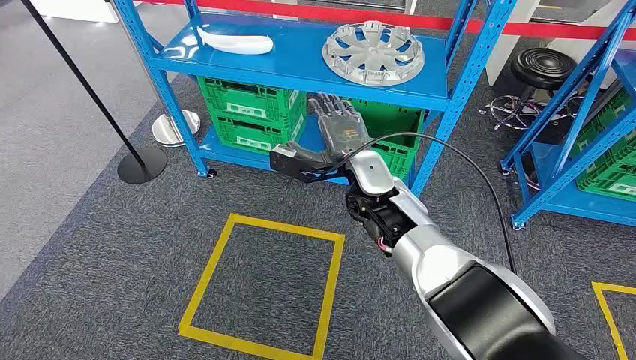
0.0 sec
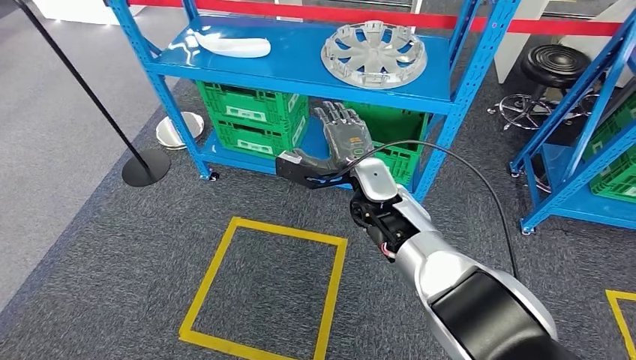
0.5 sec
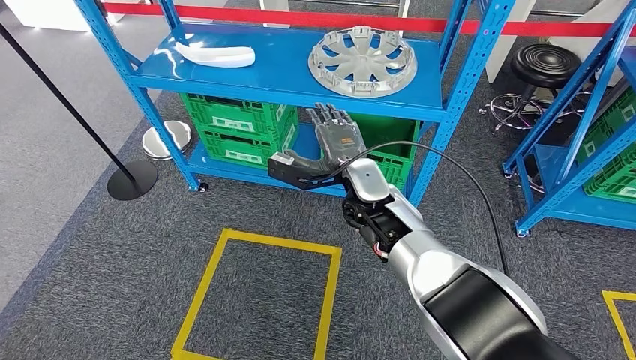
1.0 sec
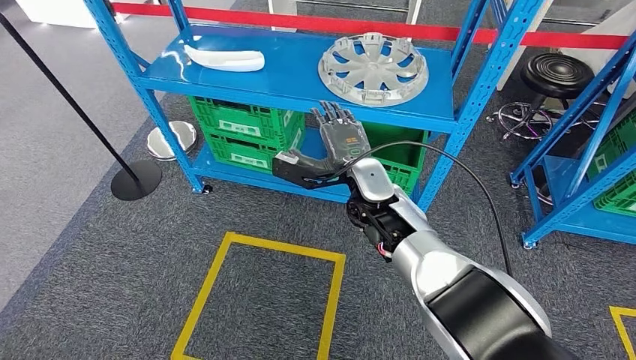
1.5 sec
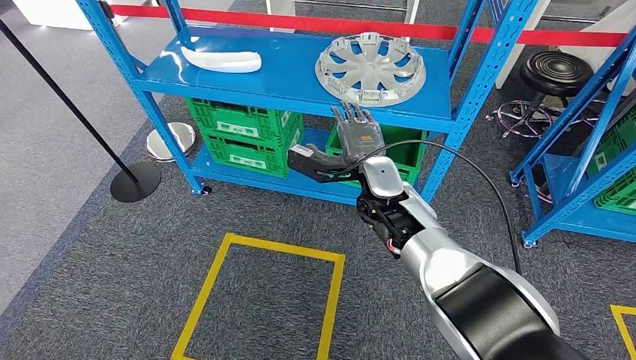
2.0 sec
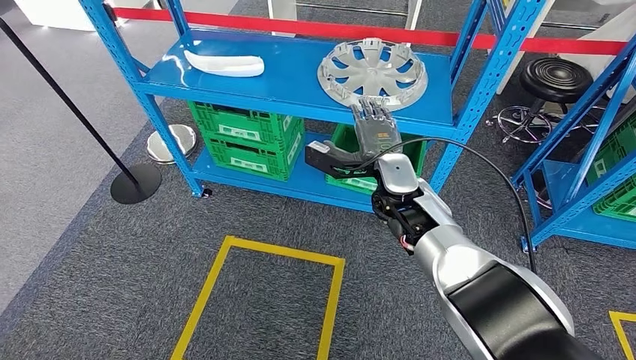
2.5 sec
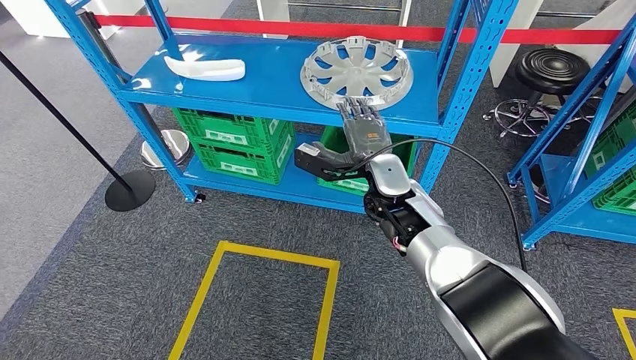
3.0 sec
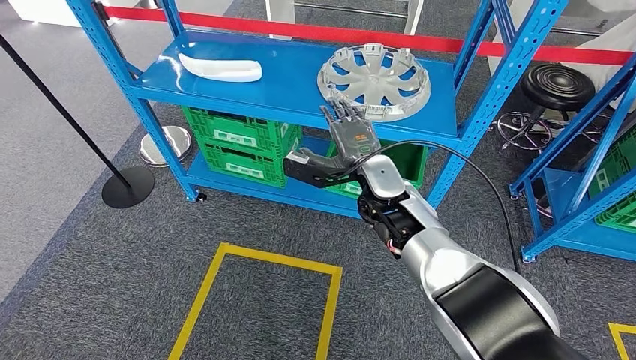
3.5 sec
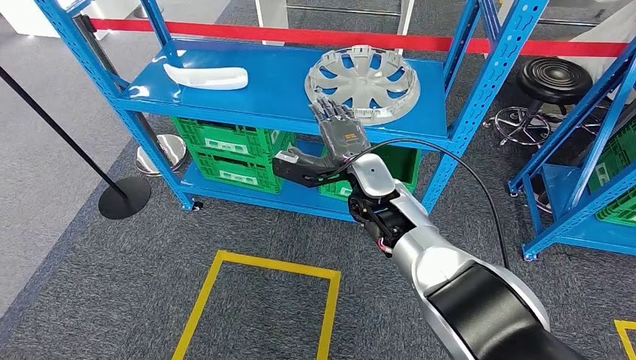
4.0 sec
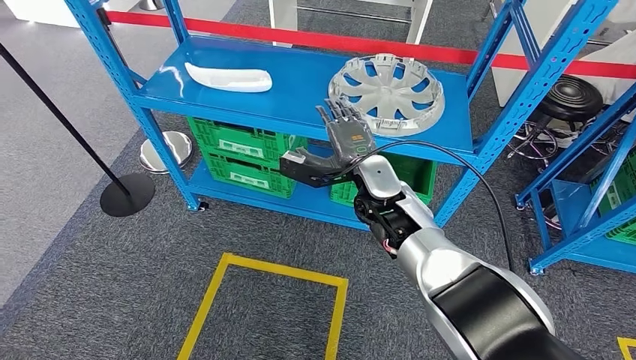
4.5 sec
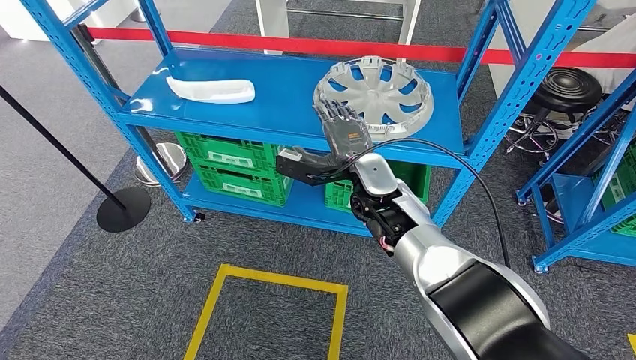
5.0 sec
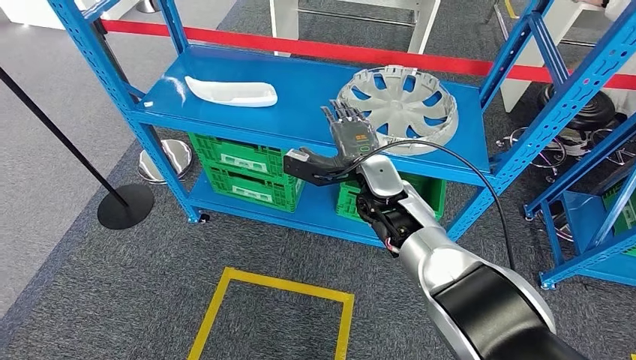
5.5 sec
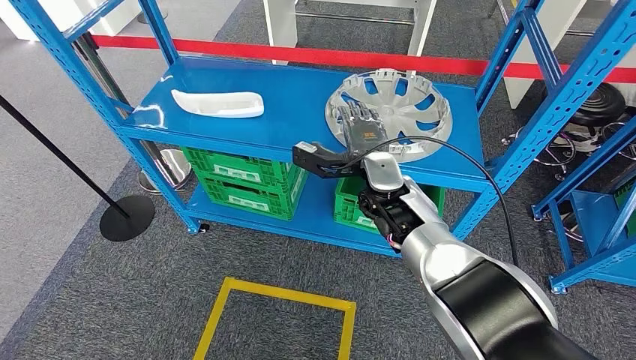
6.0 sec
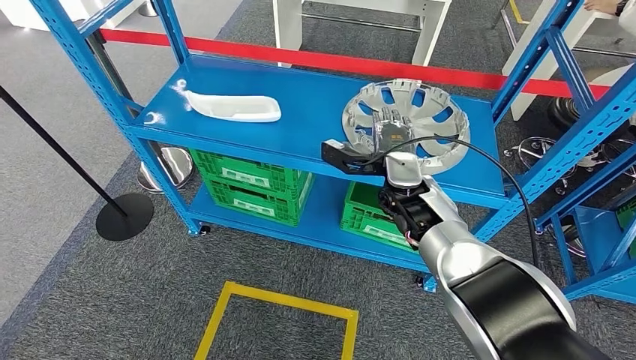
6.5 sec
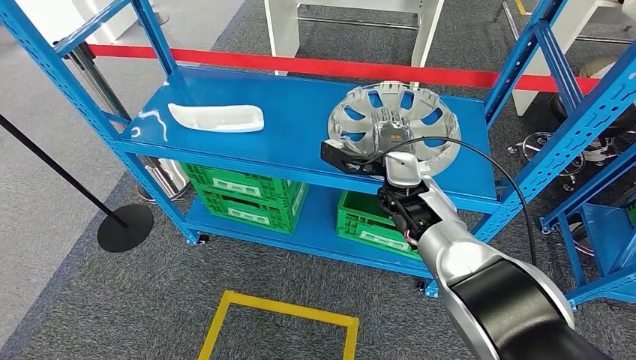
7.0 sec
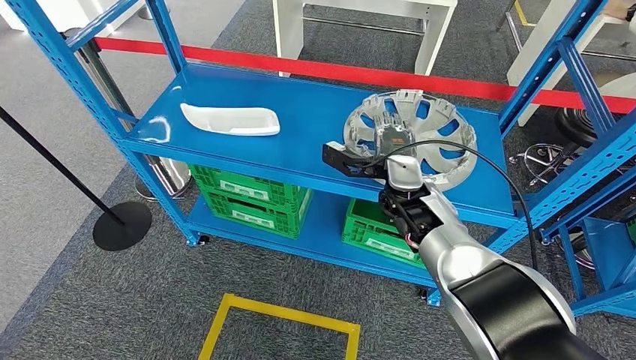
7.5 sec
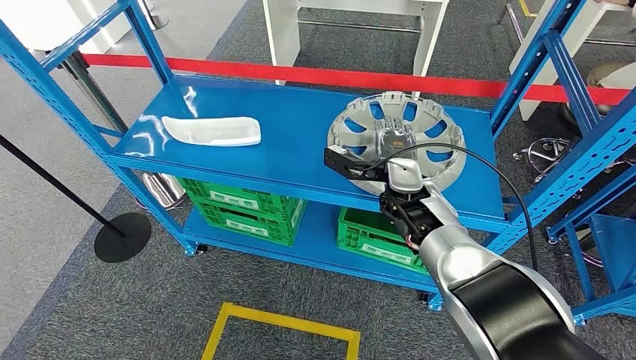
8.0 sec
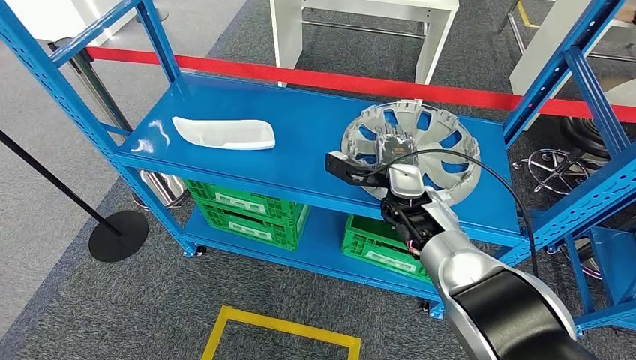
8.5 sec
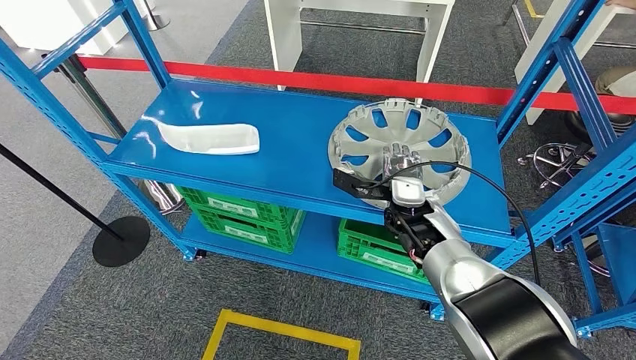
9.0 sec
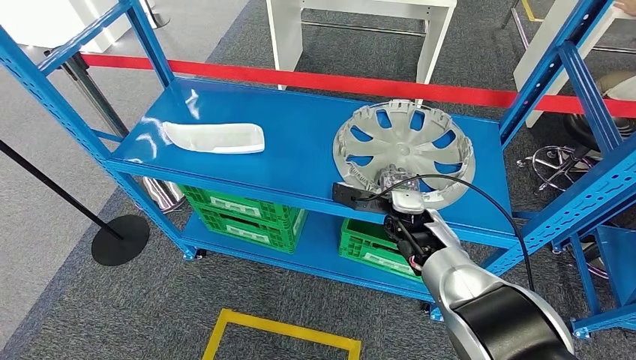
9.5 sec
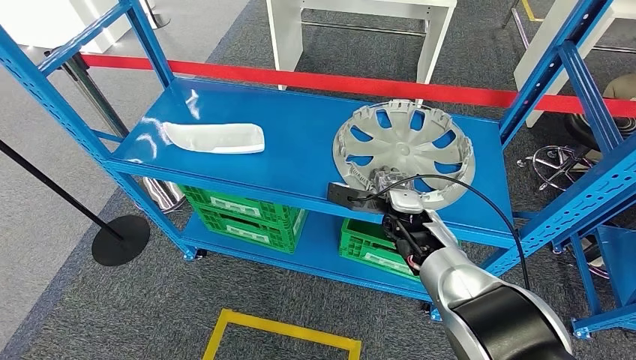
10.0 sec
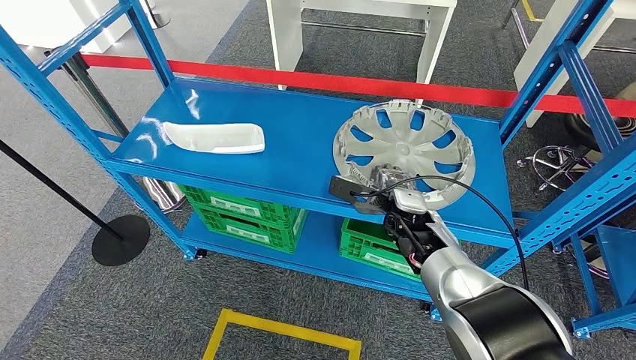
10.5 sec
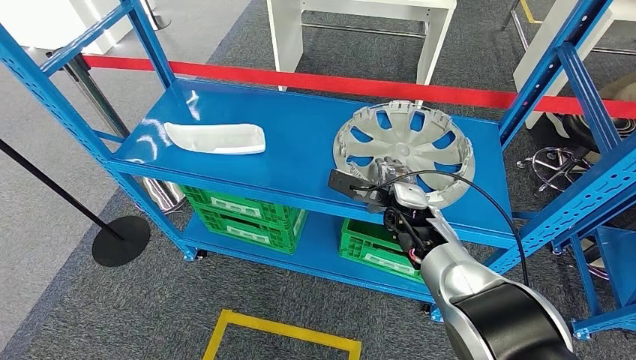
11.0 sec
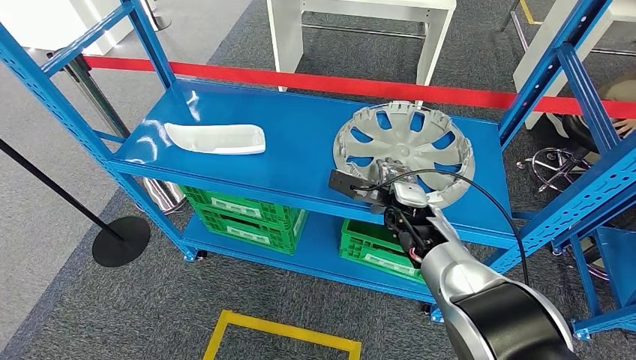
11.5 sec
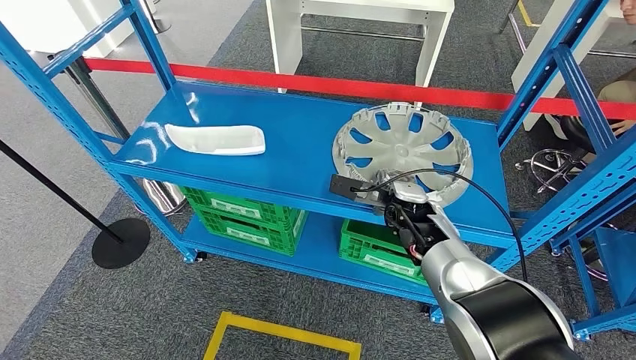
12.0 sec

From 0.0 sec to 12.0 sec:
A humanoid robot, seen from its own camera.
From 10.0 sec to 12.0 sec: The hands move only a little.

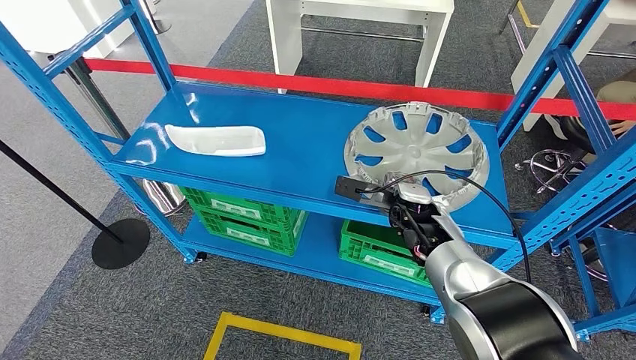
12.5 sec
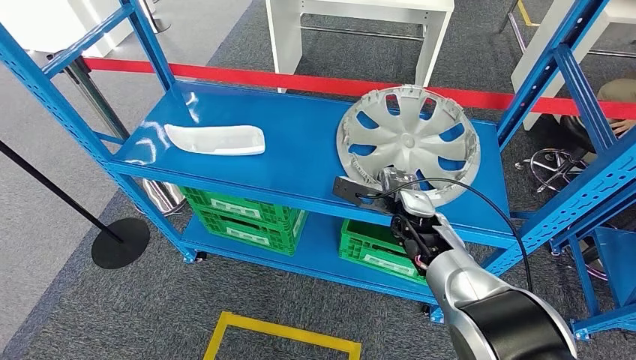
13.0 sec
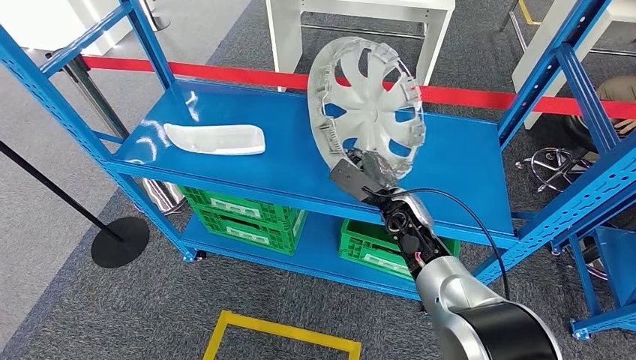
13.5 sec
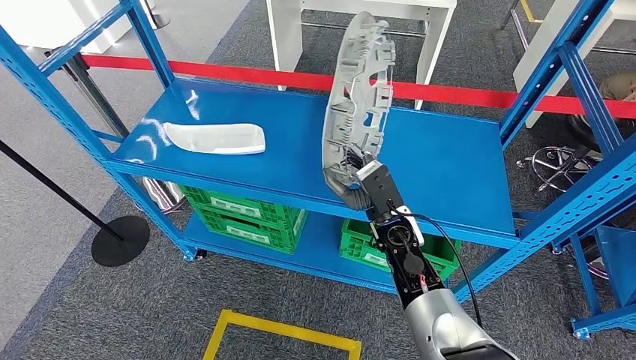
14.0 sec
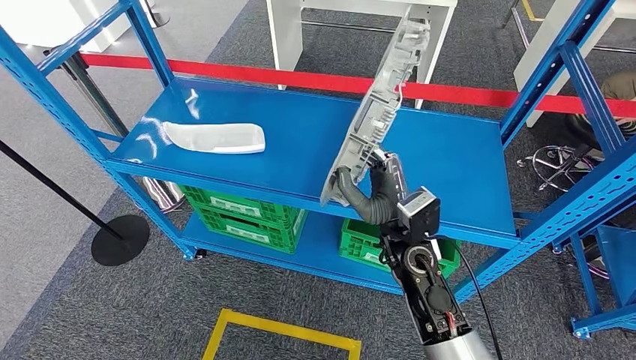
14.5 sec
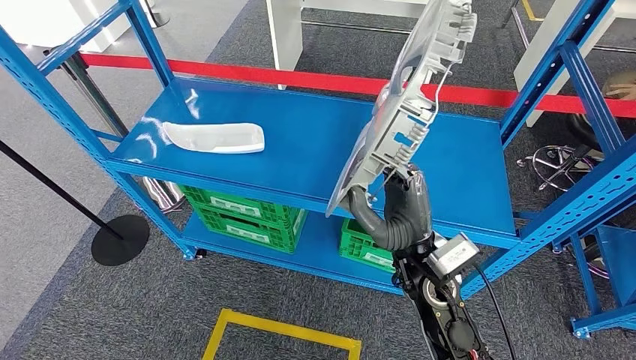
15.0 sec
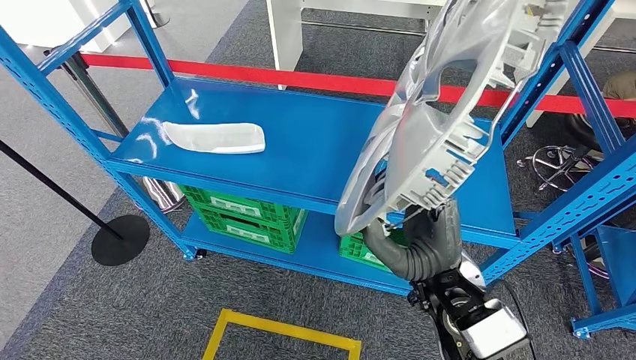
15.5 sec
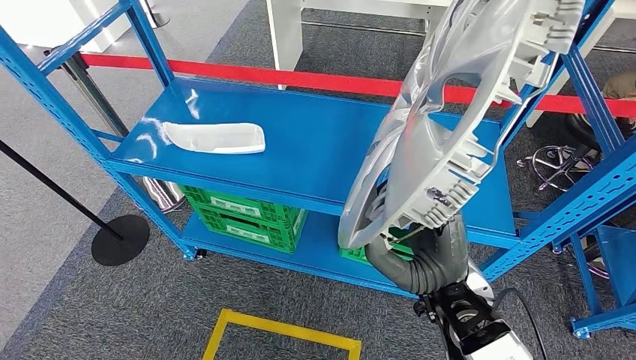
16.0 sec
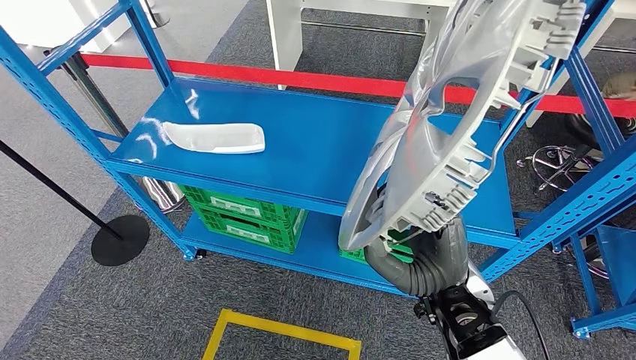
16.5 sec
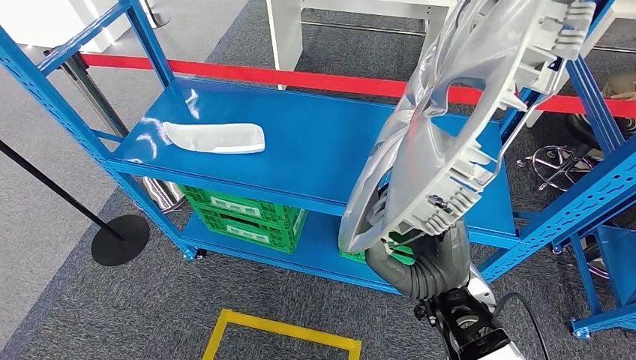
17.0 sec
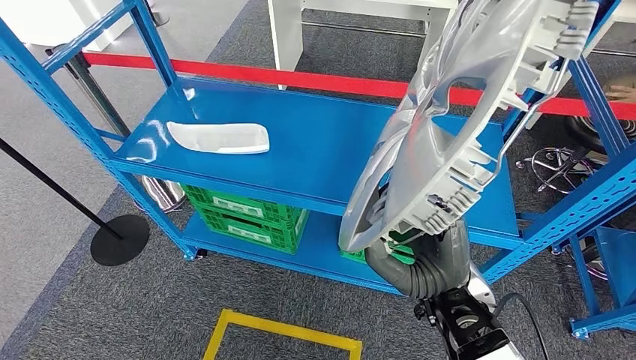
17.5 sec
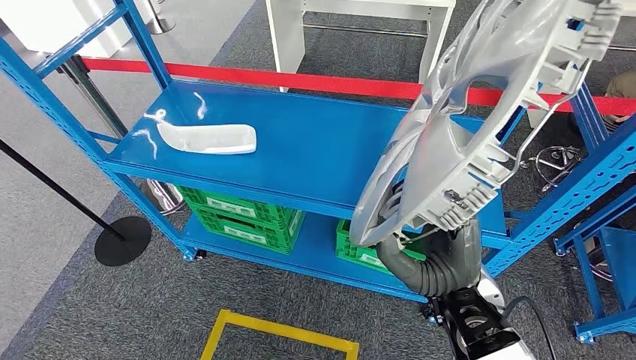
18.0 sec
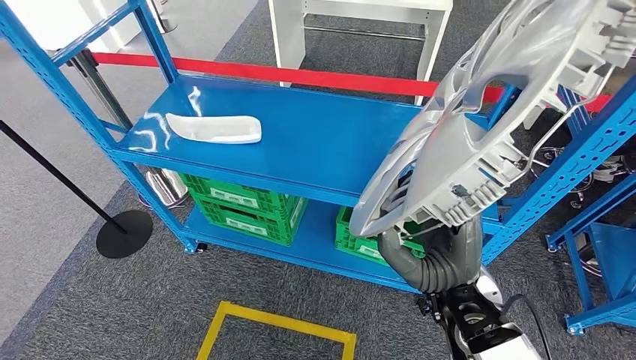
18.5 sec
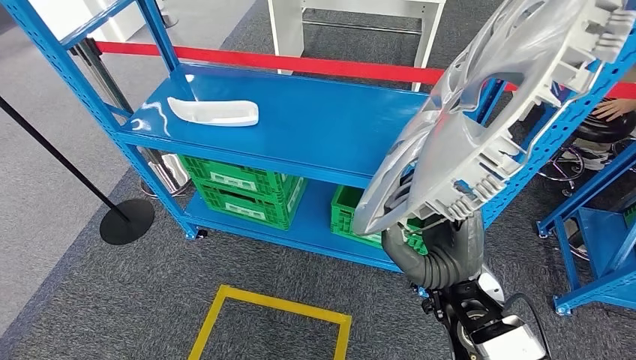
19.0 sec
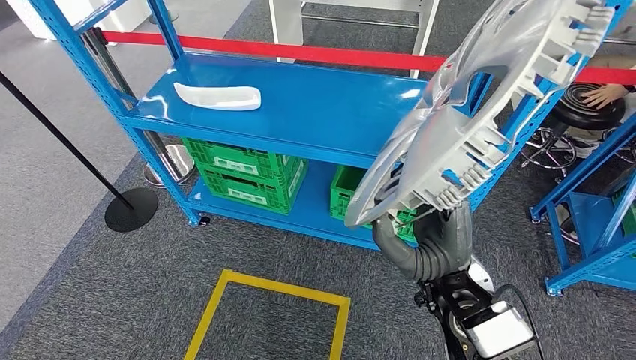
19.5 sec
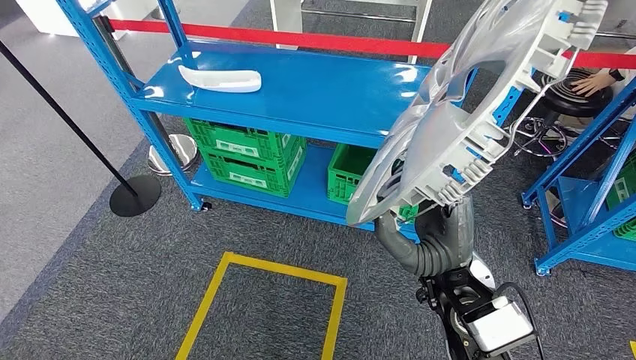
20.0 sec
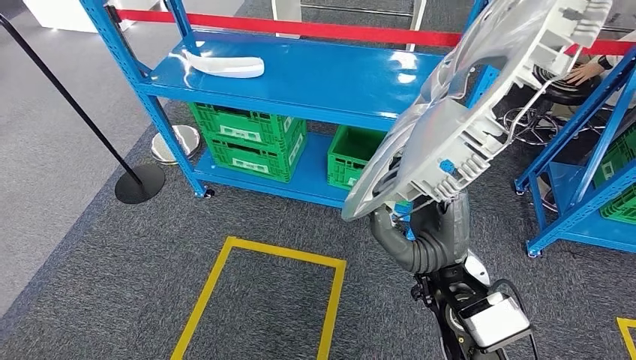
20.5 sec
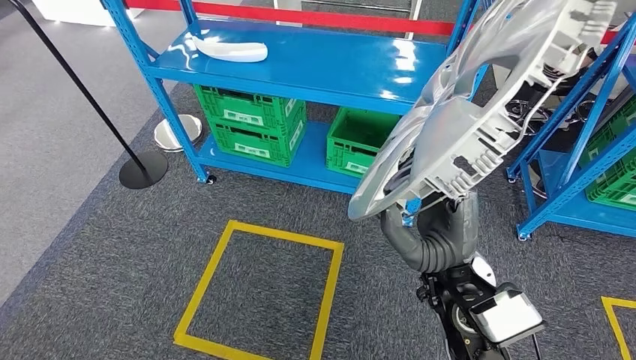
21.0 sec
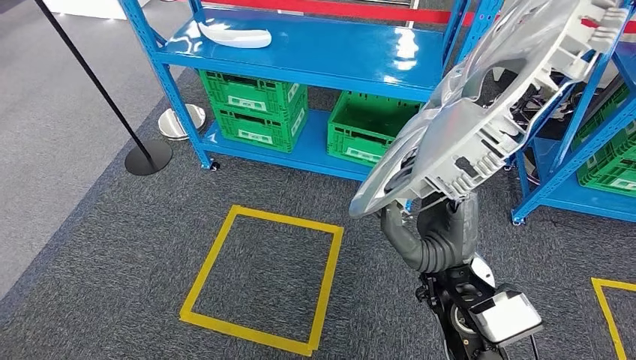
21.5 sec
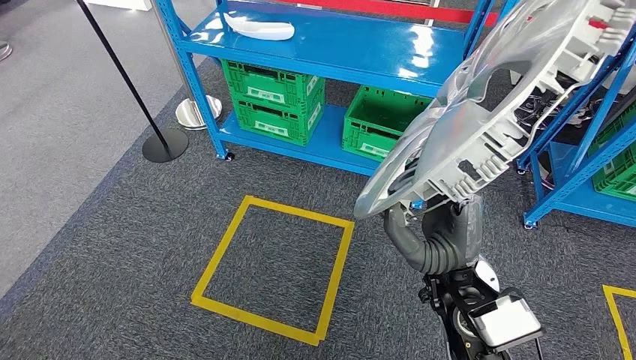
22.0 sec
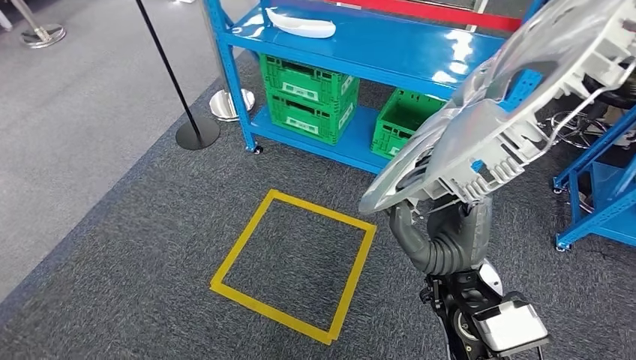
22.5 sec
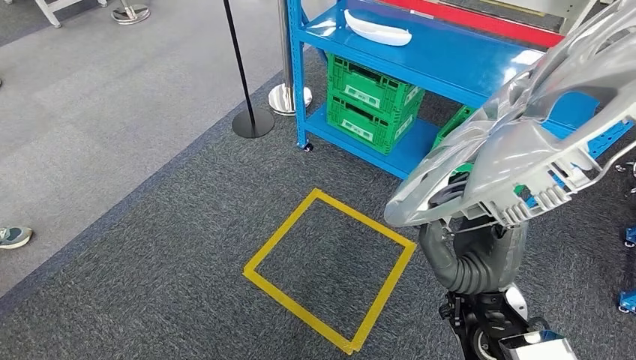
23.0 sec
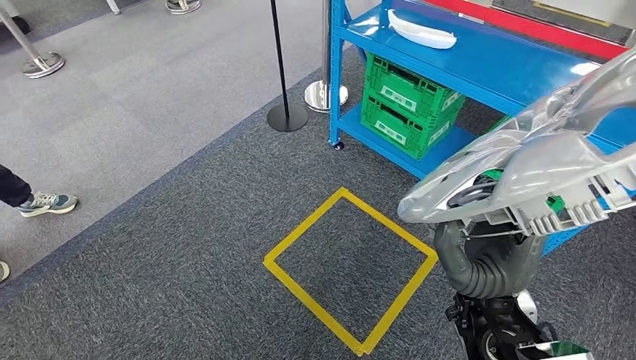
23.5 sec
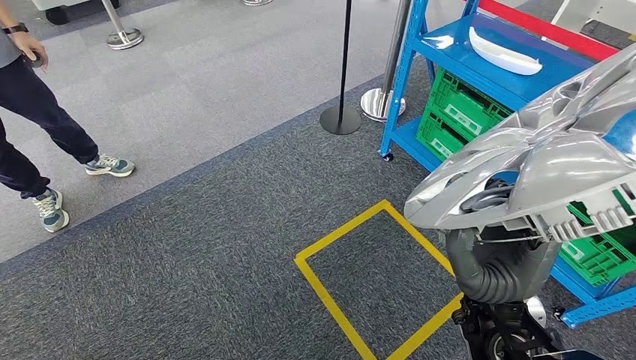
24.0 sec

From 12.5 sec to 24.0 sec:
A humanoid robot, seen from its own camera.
Step, from 12.5 sec to 17.0 sec: Pick up the large material from the shelf.
From 14.5 sec to 16.5 sec: The right hand travels backward and upward by approximately 10 cm.
